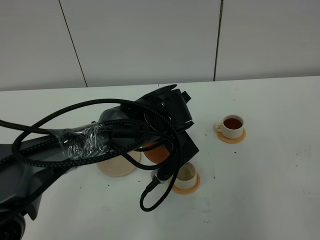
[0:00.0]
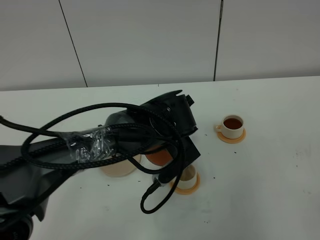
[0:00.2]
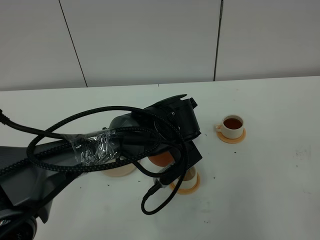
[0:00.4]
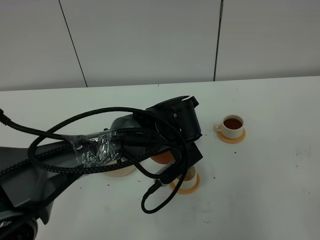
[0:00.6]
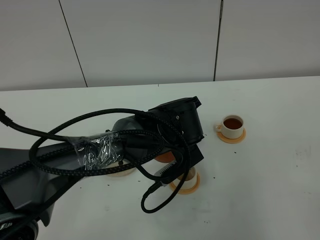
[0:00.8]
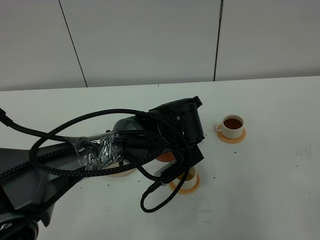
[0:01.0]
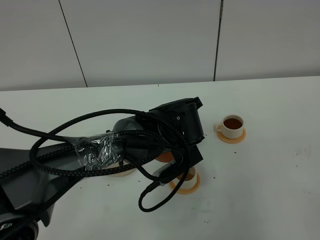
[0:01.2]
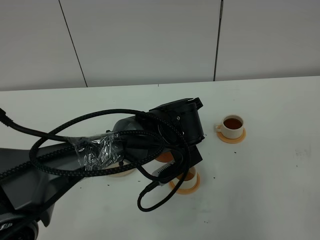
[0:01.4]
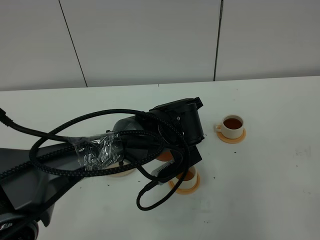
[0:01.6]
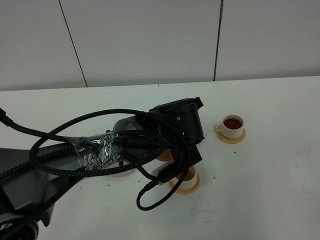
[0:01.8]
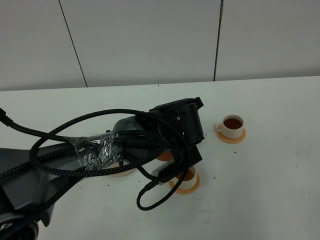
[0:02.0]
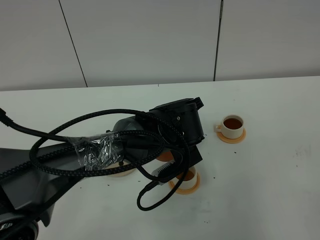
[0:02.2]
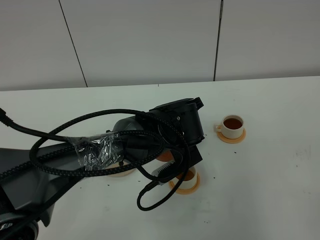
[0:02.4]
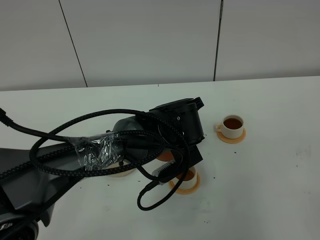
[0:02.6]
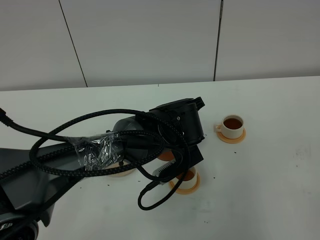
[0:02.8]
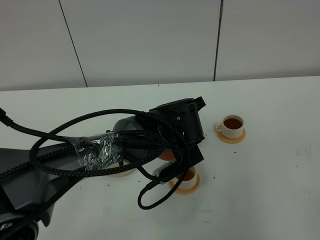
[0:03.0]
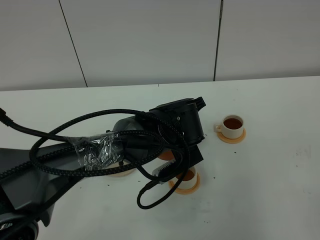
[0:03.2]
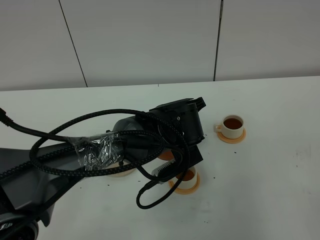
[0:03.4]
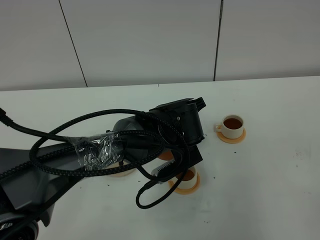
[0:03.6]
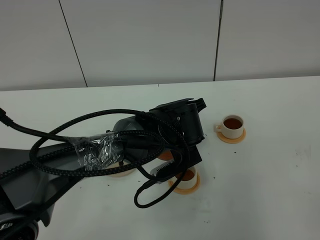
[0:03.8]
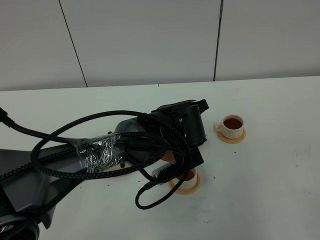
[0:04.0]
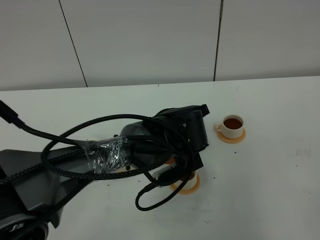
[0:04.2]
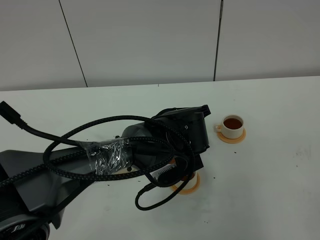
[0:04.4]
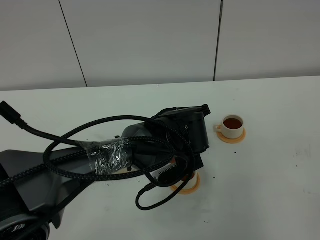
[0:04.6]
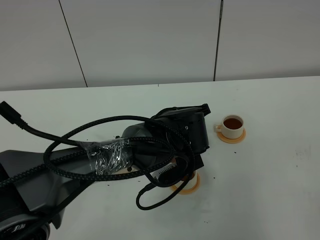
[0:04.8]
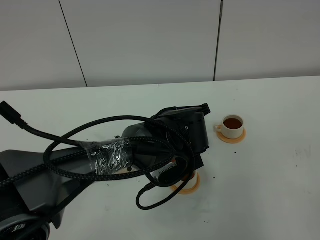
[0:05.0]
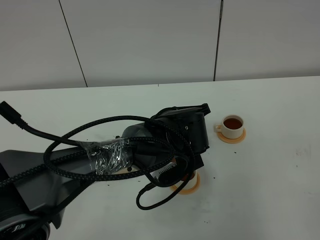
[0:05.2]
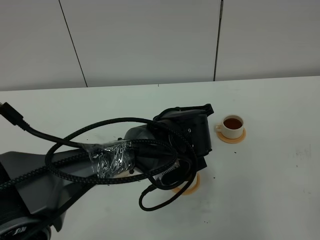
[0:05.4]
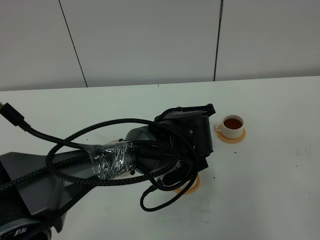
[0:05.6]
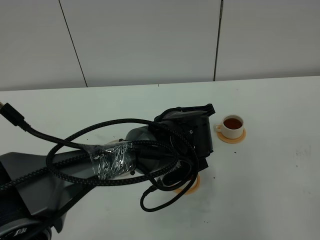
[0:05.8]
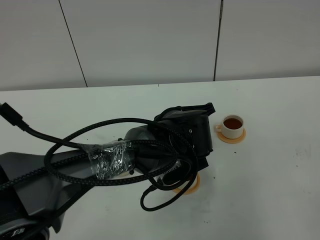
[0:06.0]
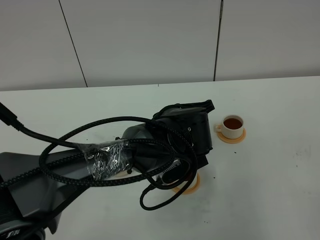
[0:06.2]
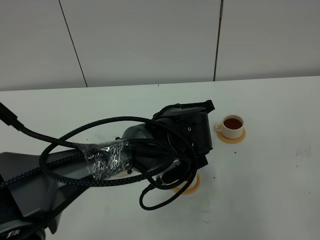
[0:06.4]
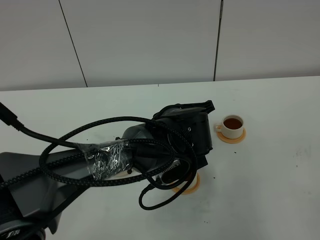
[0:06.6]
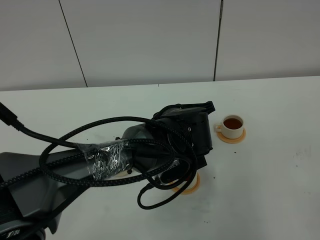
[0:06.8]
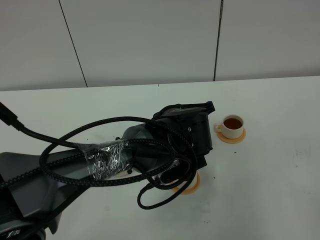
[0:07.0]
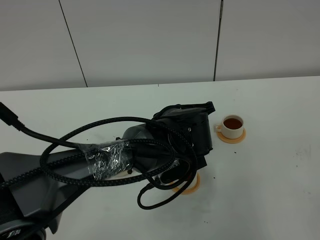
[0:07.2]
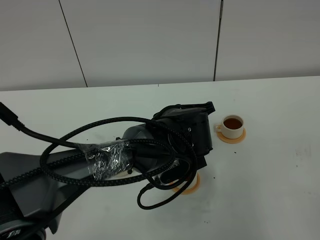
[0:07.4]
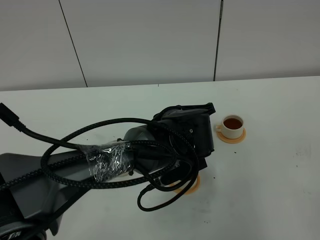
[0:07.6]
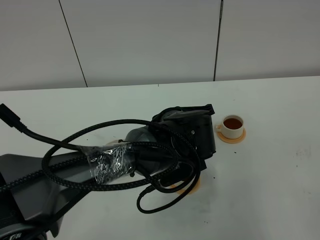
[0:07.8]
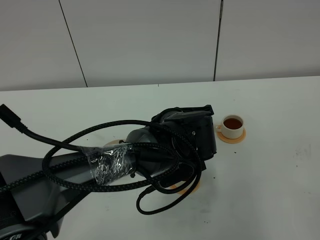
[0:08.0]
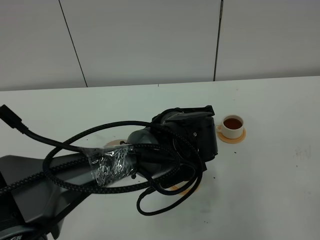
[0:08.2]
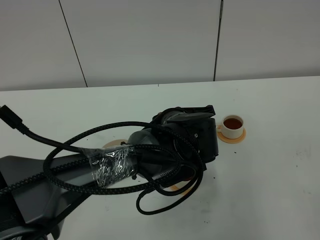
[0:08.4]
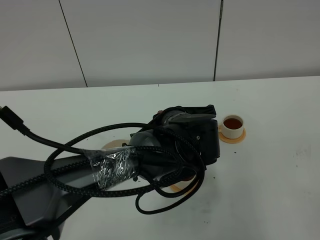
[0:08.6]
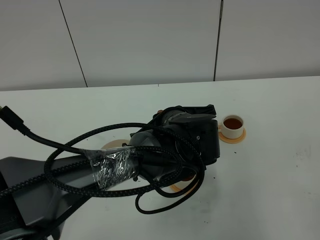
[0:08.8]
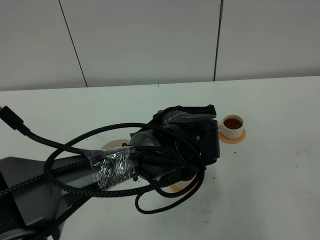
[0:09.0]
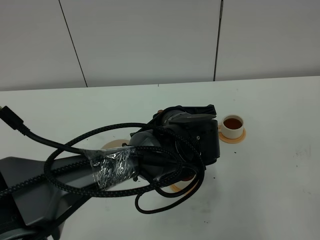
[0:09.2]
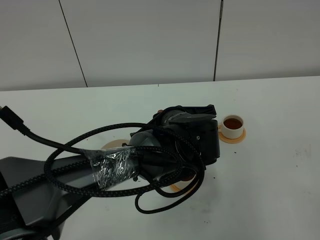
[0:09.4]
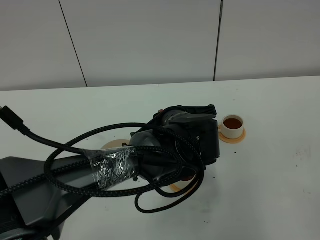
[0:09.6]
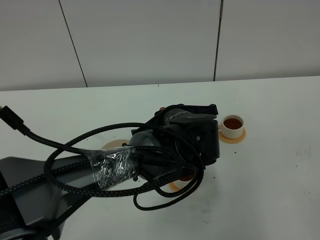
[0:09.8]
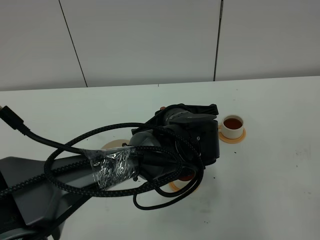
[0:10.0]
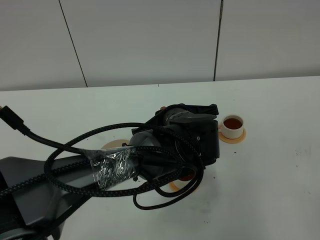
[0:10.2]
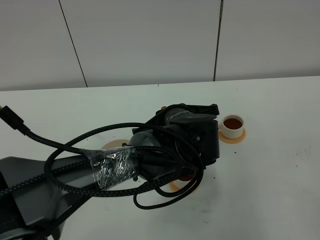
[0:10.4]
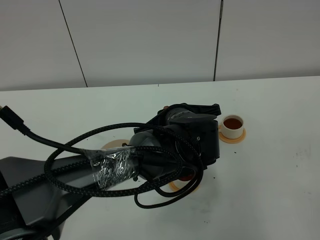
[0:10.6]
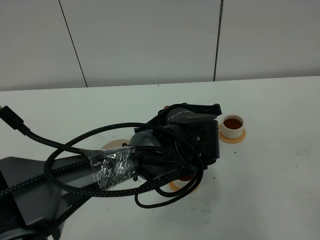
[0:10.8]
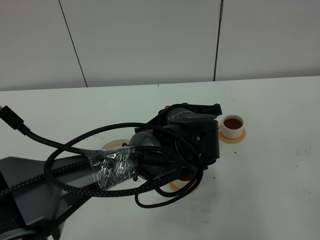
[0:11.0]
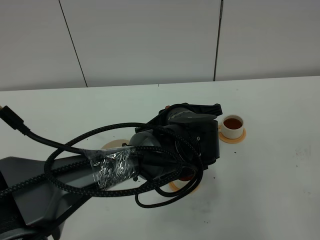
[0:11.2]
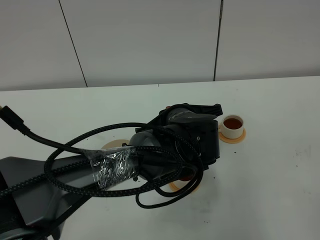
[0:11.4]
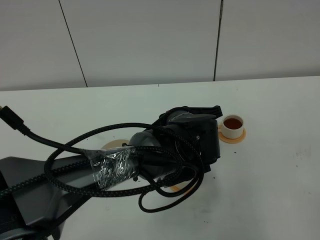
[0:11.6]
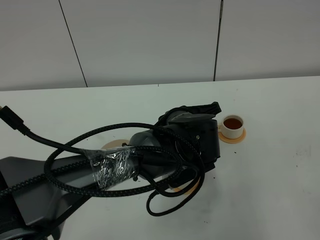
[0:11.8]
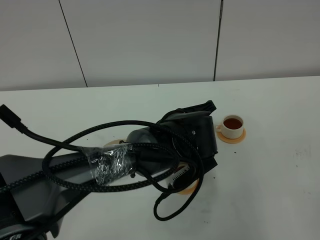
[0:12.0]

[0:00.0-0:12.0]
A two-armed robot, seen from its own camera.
Task of the whole recording: grasp the brown teapot and pour the tea into the two white teacups one by one, put the brown teapot back in its original place.
0:00.0 to 0:01.6: The grippers move only a little.
0:01.6 to 0:03.0: Neither gripper changes place.
0:03.0 to 0:04.4: The grippers make only small movements.
0:04.4 to 0:06.0: The two grippers keep their place.
0:06.0 to 0:07.6: The two grippers keep their place.
0:07.6 to 0:09.0: Both grippers stay about where they are.
0:09.0 to 0:10.4: Neither gripper changes place.
0:10.4 to 0:12.0: The grippers make only small movements.

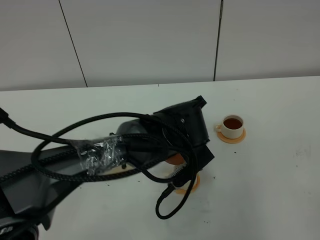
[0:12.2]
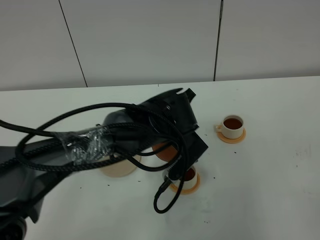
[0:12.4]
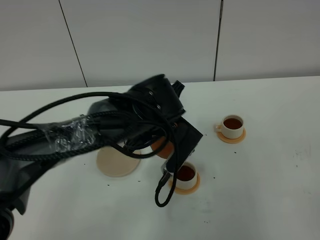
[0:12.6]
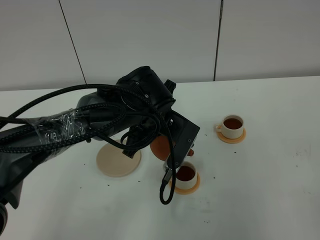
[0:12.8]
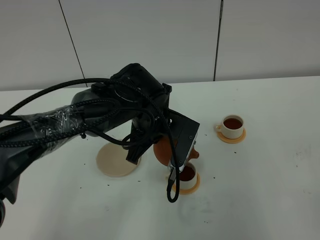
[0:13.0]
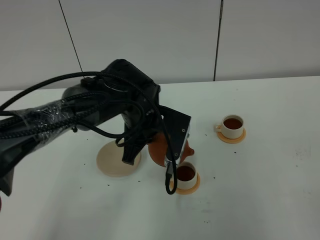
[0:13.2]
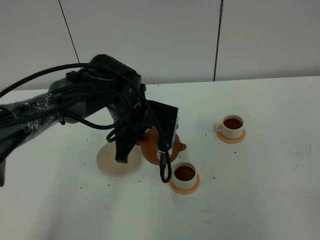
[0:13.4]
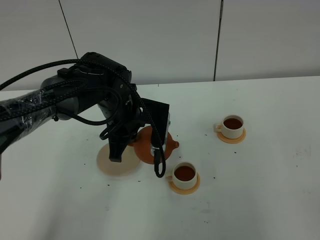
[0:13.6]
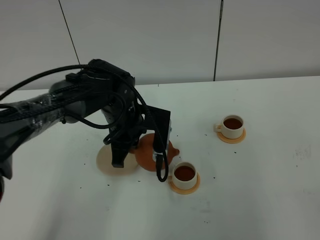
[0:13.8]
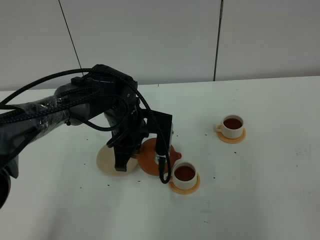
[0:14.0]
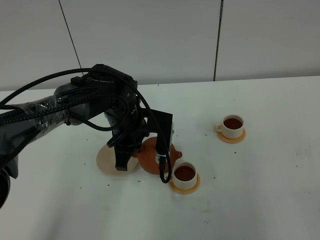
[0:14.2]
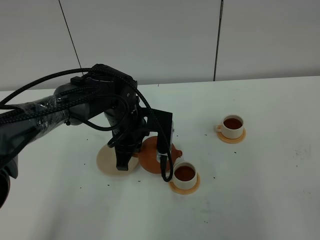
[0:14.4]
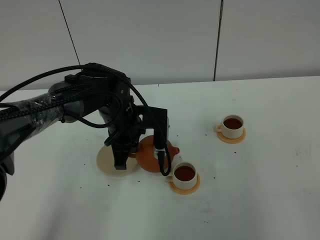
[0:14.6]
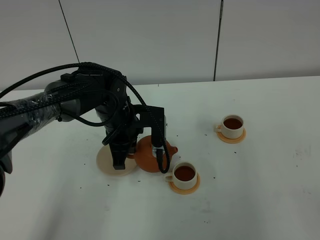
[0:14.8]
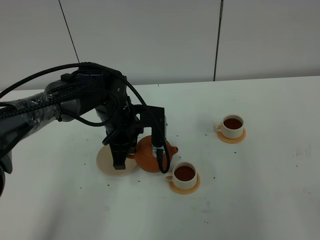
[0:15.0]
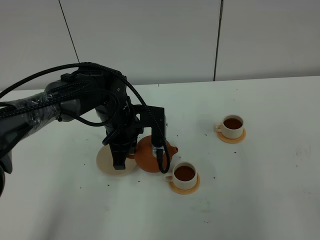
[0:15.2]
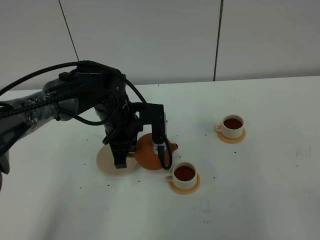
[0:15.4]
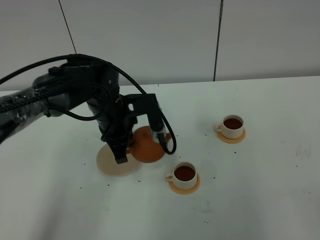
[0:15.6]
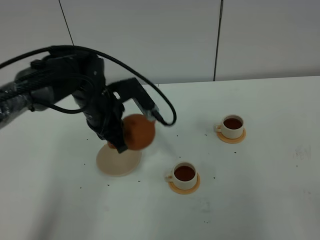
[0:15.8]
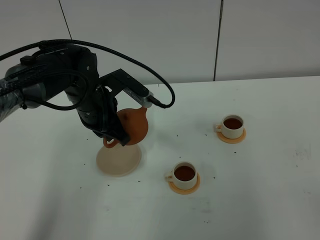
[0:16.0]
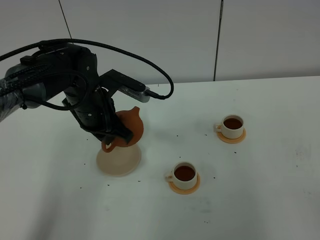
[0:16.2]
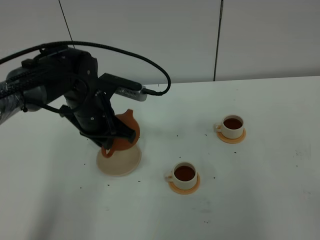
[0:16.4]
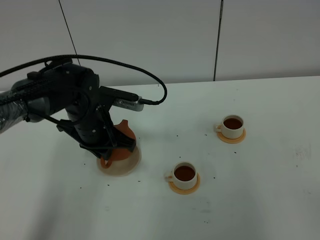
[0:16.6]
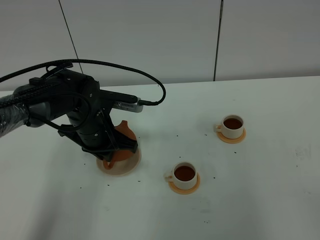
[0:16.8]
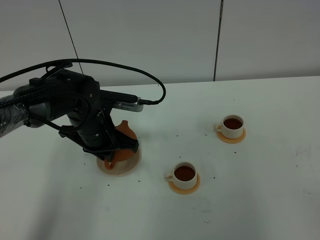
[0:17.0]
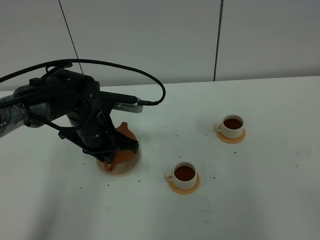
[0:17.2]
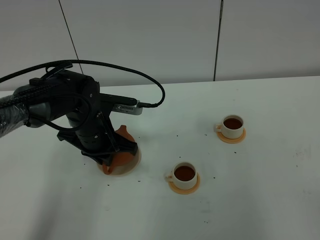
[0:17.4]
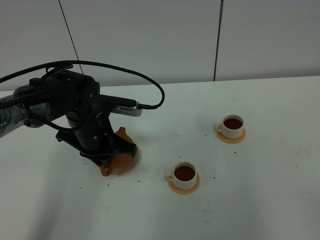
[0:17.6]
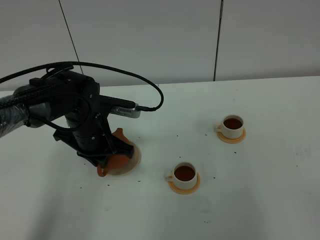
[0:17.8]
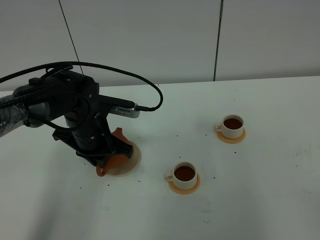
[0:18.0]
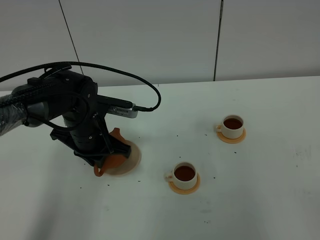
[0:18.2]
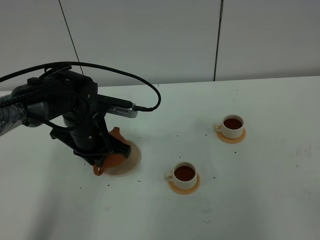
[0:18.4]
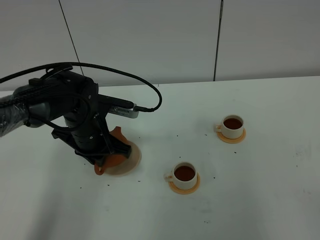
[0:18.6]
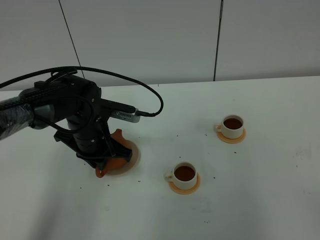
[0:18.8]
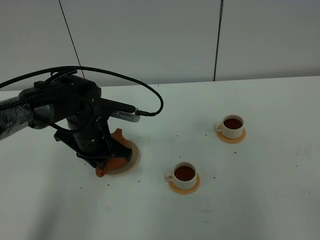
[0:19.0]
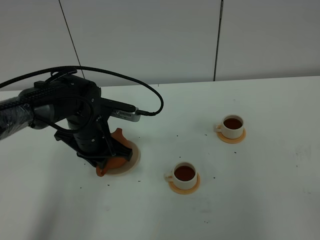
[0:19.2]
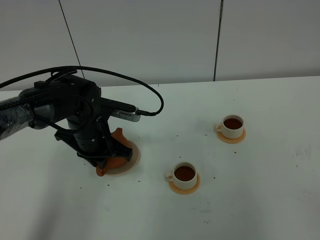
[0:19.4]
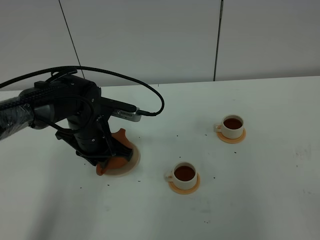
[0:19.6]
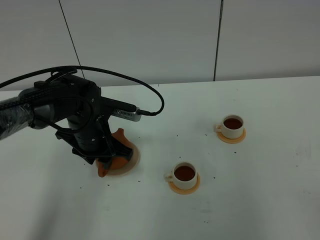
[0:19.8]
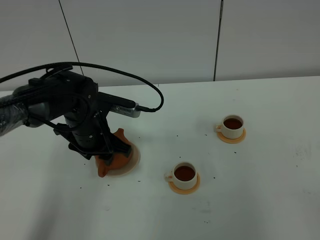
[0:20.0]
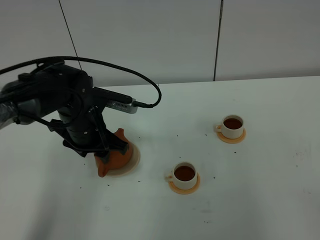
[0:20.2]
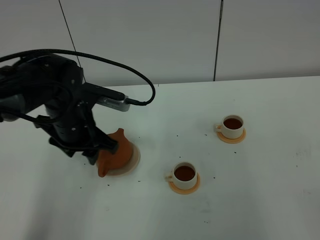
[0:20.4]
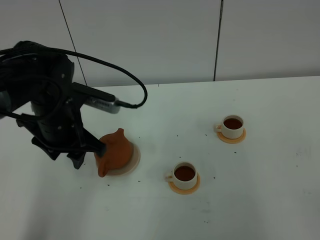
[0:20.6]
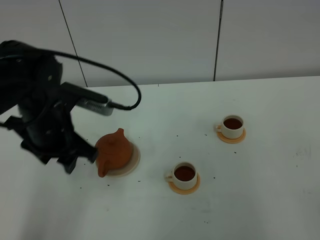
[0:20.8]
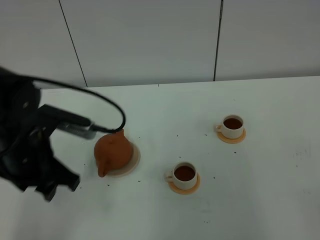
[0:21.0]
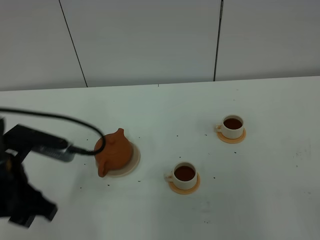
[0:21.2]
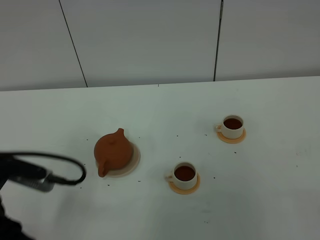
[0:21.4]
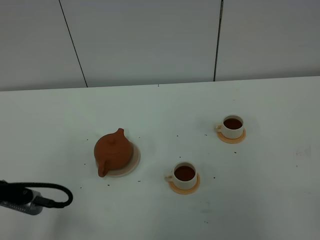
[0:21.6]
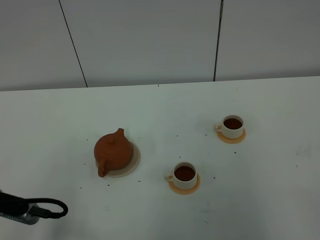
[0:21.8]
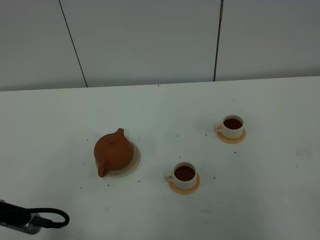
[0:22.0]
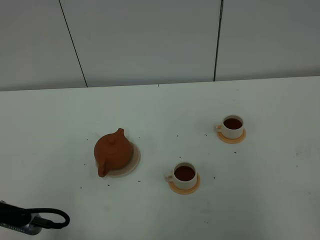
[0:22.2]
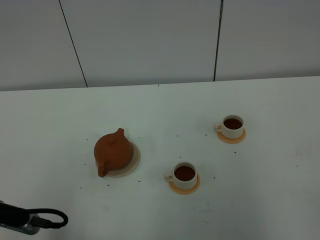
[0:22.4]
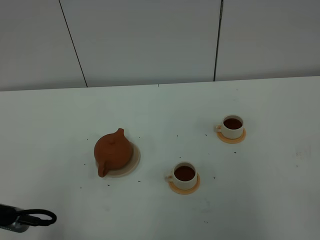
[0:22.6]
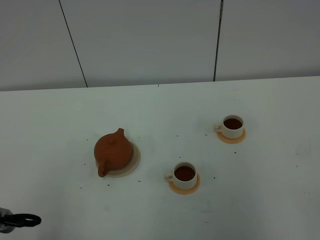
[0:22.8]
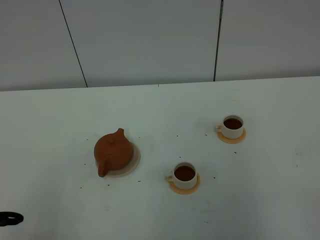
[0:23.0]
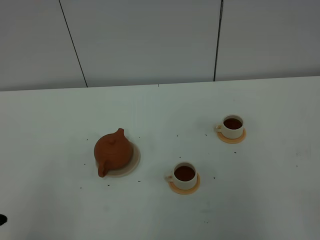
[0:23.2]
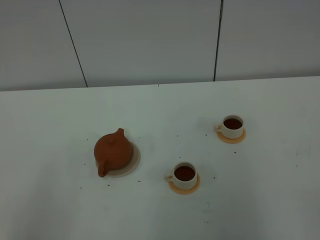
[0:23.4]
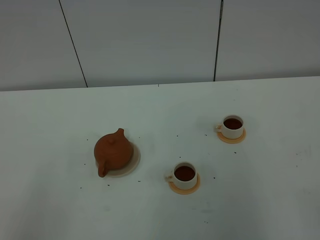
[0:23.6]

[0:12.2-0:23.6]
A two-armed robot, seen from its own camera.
Task of the whole recording: grasp the brown teapot and pour the tea into the two white teacups one by one, put the brown teapot back in its original place.
0:12.2 to 0:13.6: The left gripper is displaced to the left and forward by about 10 cm.
0:13.6 to 0:15.0: The grippers make only small movements.
0:15.0 to 0:16.4: The left gripper changes place by roughly 5 cm.
0:16.4 to 0:17.8: The grippers make only small movements.
0:17.8 to 0:19.4: Both grippers stay about where they are.
0:19.4 to 0:20.8: The left gripper shifts some 10 cm upward and backward, and opens its fingers.
0:20.8 to 0:22.2: The left gripper shifts some 20 cm backward.
0:22.2 to 0:23.6: The left gripper shifts some 10 cm backward.
